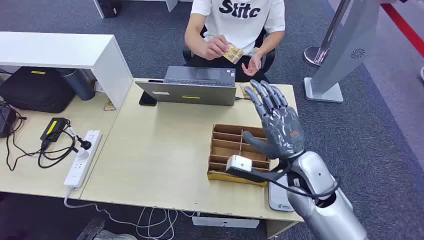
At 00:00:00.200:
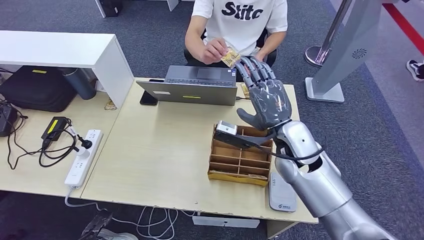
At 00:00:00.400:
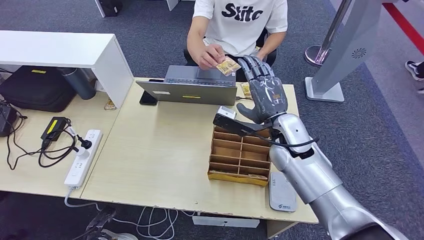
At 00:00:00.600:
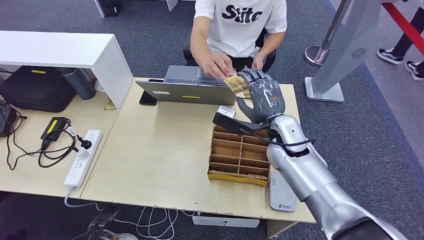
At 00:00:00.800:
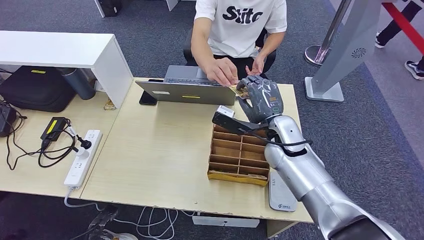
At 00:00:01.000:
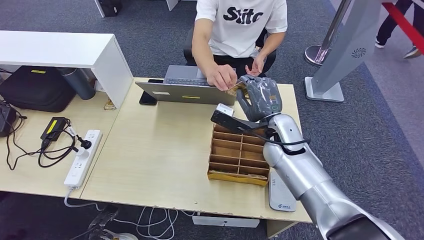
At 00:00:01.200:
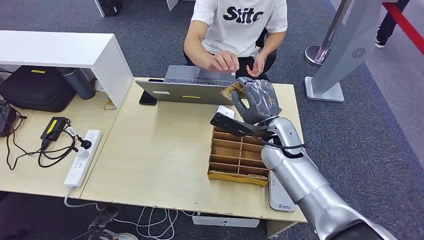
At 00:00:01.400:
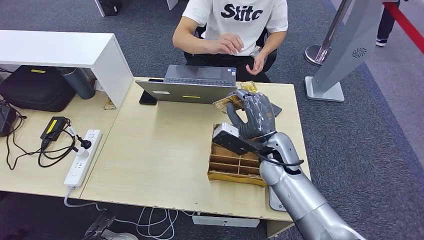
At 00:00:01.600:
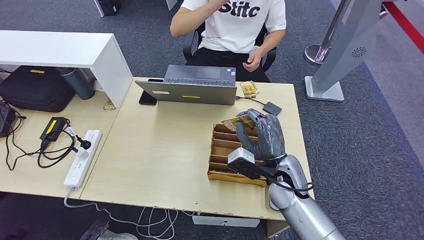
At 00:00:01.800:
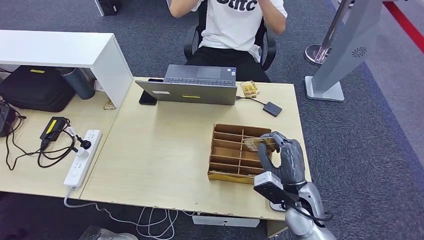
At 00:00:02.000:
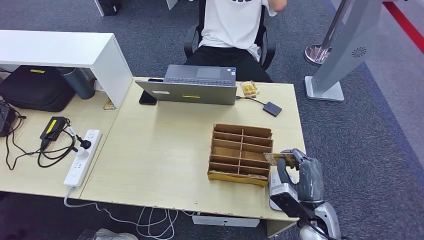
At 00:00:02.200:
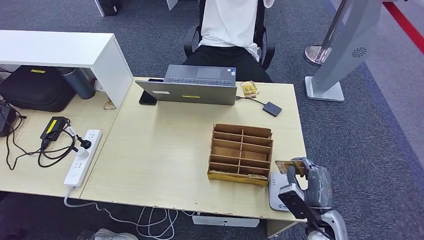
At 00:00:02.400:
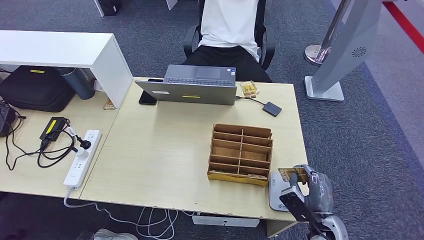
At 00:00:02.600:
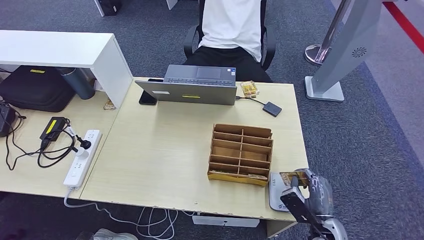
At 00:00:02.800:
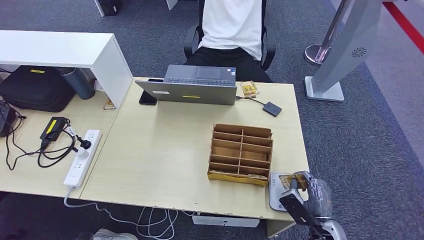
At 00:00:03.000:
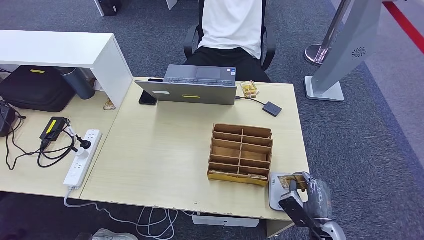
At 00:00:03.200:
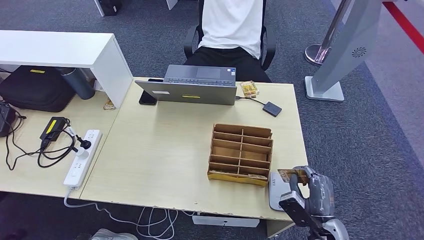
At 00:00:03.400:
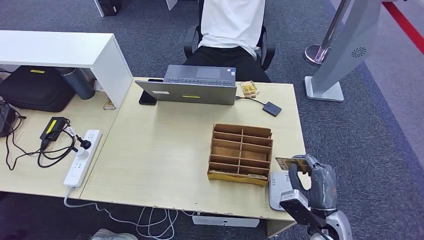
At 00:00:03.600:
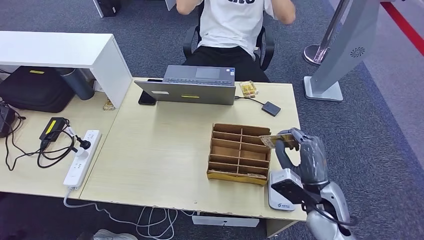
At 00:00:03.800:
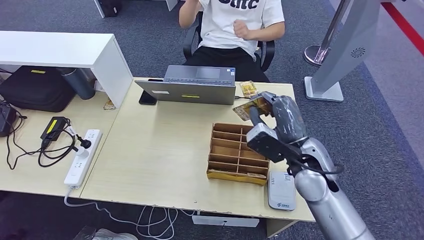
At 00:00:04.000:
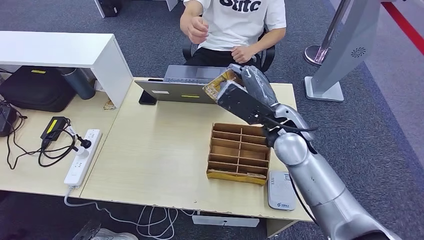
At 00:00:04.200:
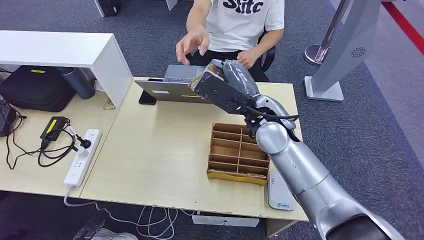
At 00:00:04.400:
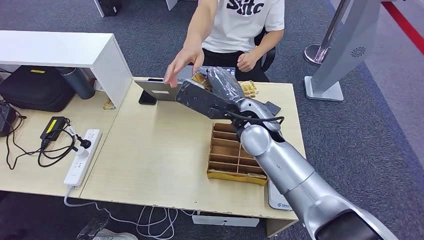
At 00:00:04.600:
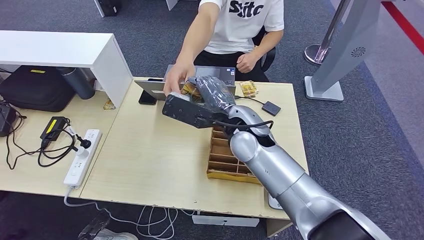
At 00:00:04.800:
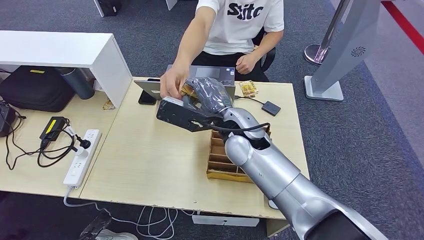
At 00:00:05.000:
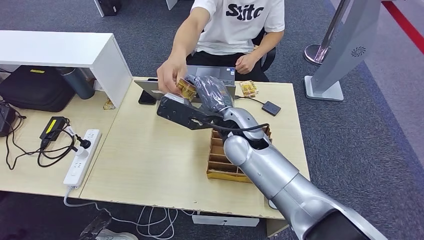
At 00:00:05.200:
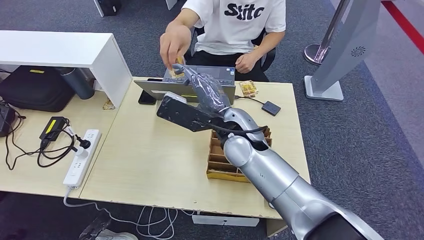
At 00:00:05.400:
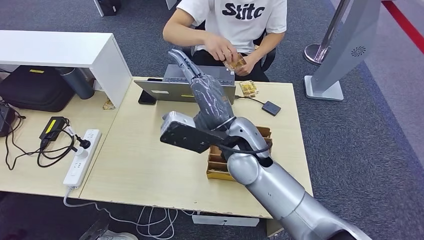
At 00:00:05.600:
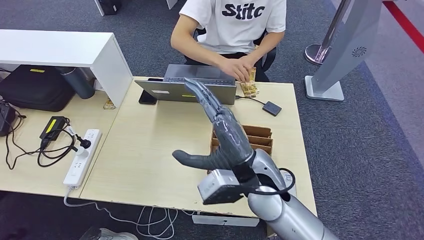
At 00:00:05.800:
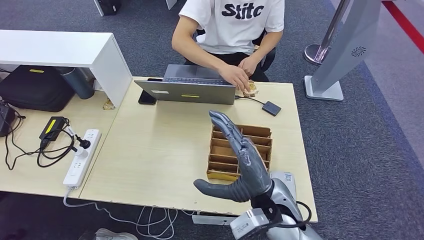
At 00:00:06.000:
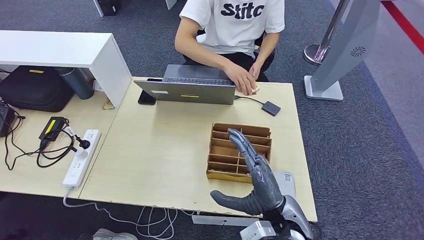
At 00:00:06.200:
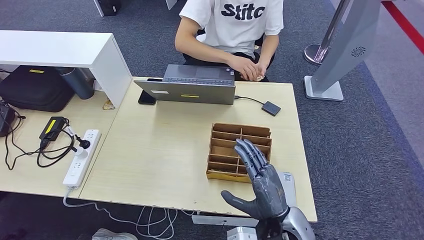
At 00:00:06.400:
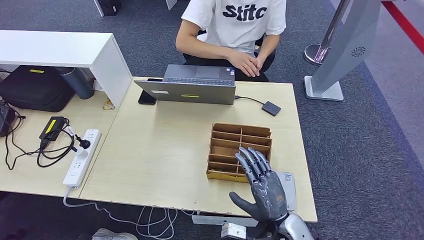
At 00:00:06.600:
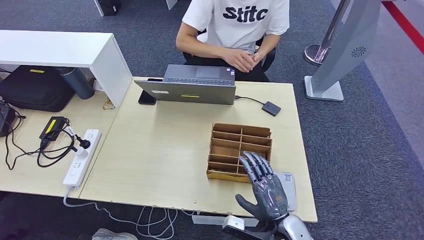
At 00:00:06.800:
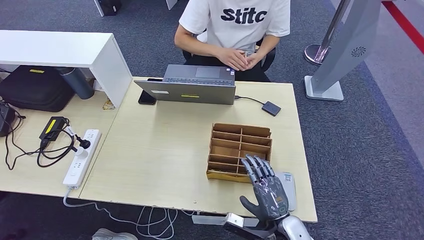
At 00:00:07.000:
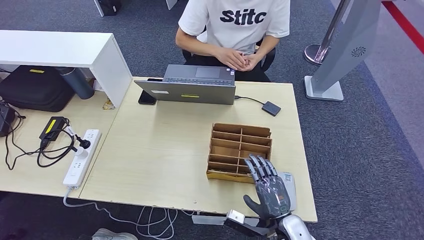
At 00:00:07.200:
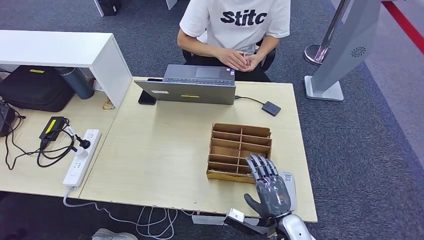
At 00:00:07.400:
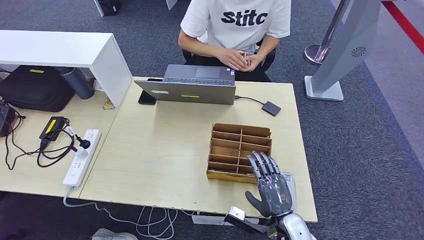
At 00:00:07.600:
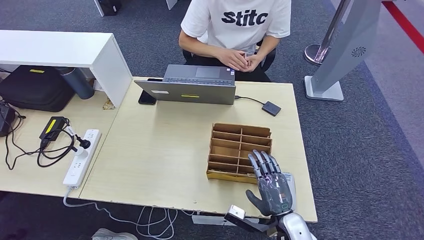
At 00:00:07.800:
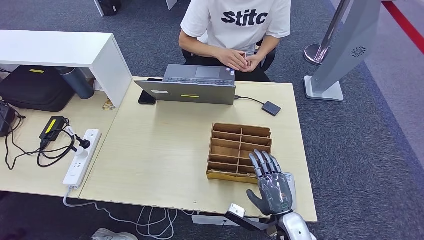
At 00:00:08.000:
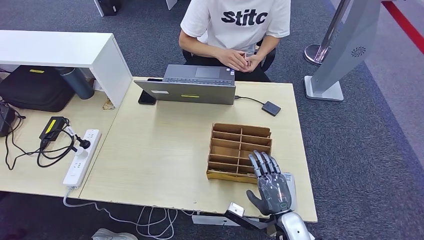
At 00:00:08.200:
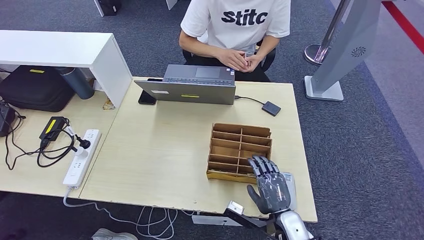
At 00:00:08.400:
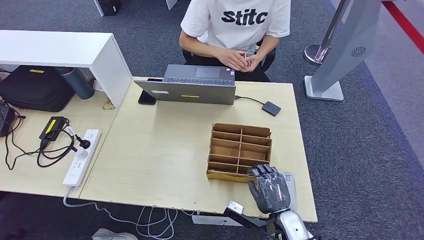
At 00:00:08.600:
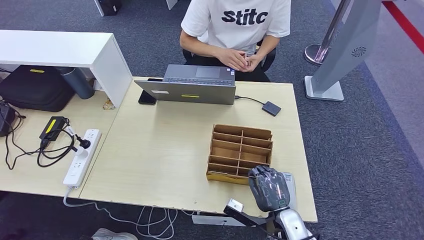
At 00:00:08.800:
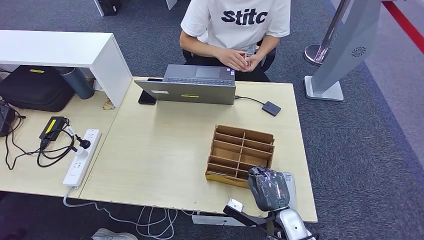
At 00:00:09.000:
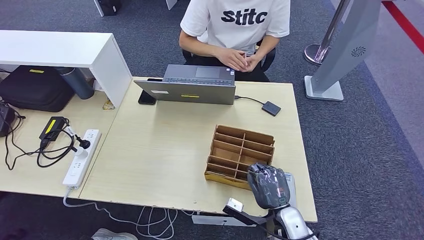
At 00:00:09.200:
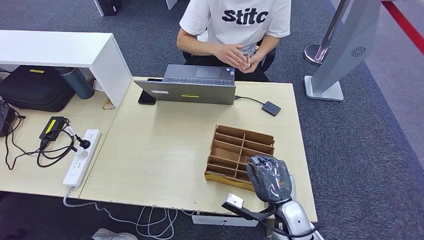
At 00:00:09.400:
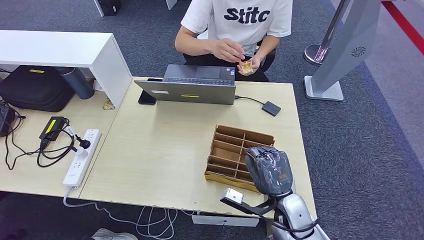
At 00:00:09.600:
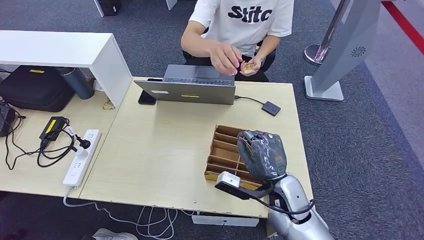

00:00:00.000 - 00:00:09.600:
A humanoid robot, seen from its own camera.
Step, 00:00:00.000 - 00:00:01.000: Take the ID card from the person's hand.
Step, 00:00:01.200 - 00:00:03.800: Place the ID card on the card reader.
Step, 00:00:04.000 - 00:00:06.000: Hand the ID card to the person.
00:00:01.600 - 00:00:03.200: The right hand moves to the right, downward and backward, about 20 cm.
00:00:03.200 - 00:00:04.800: The left hand travels forward by some 5 cm; the right hand shifts approximately 35 cm to the left, upward and forward.
00:00:04.800 - 00:00:06.400: The left hand moves backward, roughly 10 cm. Meanwhile the right hand goes some 30 cm downward, to the right and backward.
00:00:06.400 - 00:00:08.000: The right hand moves downward, roughly 5 cm.
00:00:08.000 - 00:00:09.600: The right hand goes about 10 cm upward and forward.

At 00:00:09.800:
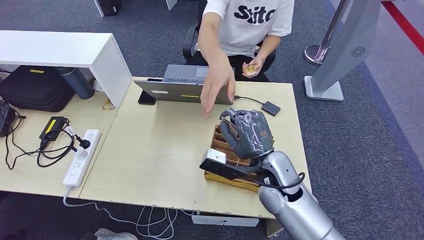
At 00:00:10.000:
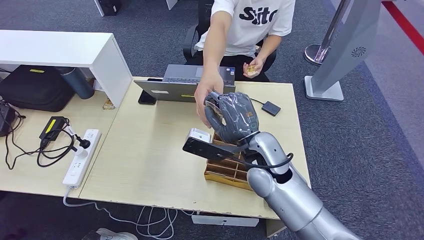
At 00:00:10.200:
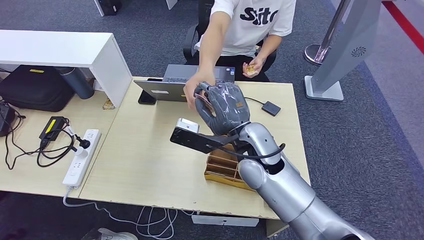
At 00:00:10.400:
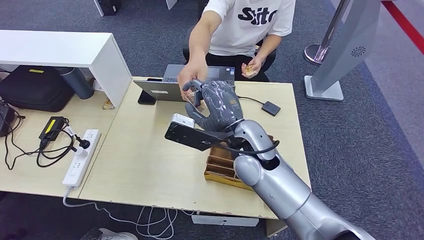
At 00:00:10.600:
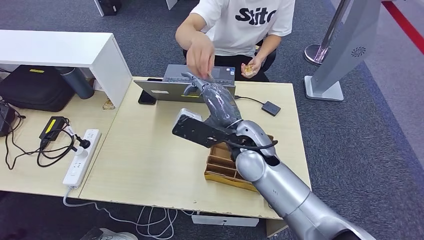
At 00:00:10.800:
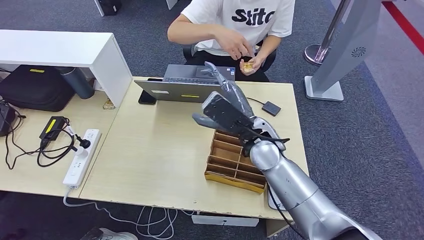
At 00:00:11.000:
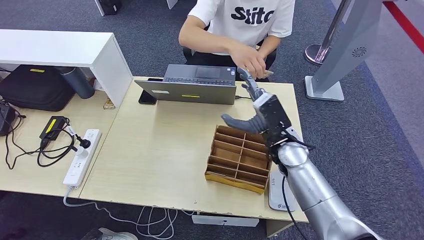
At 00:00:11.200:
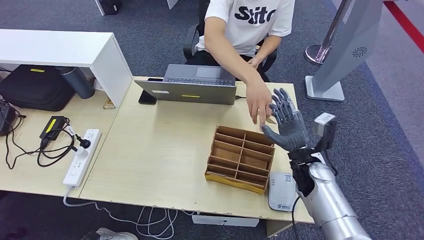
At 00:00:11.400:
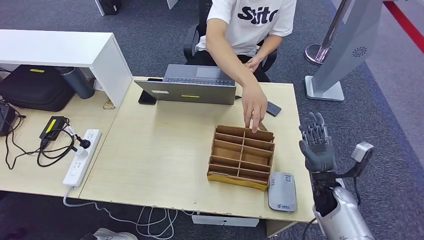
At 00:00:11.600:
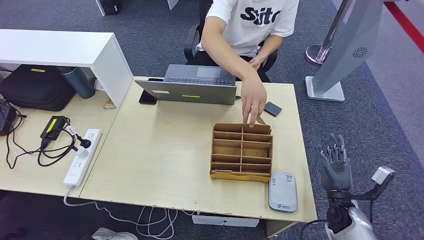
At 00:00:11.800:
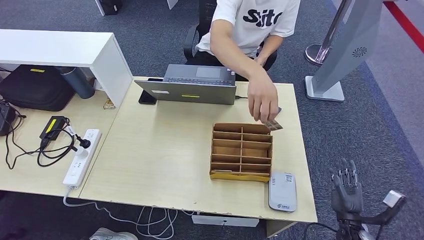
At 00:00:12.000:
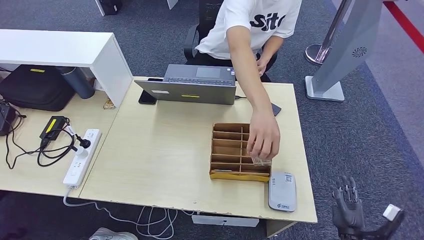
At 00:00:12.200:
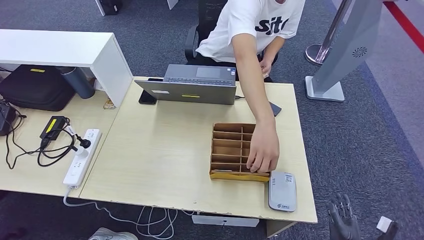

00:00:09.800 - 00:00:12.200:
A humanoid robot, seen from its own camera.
Step, 00:00:10.000 - 00:00:12.200: Hand the room key to the person.
00:00:09.800 - 00:00:11.000: The right hand goes some 5 cm forward, and moves some 5 cm to the left and comes back.
00:00:11.000 - 00:00:12.200: The right hand goes roughly 40 cm downward, to the right and backward.
